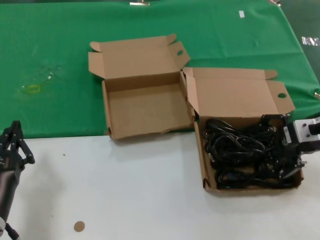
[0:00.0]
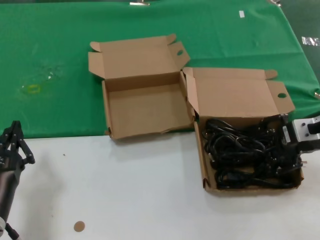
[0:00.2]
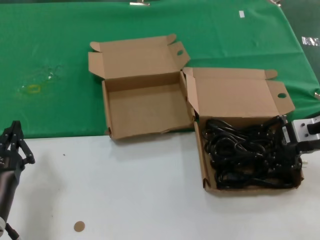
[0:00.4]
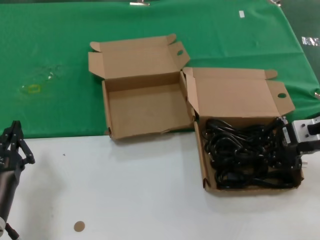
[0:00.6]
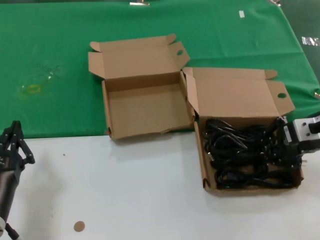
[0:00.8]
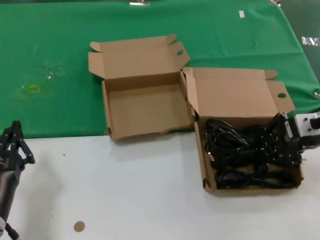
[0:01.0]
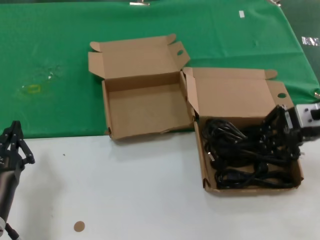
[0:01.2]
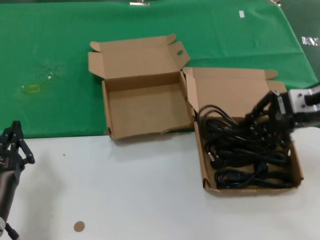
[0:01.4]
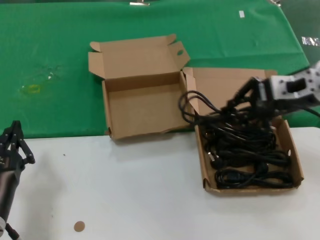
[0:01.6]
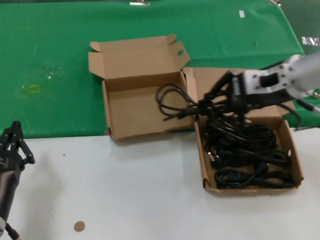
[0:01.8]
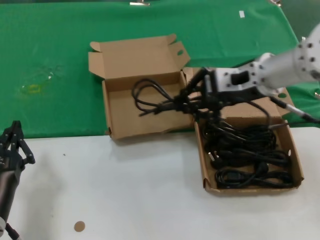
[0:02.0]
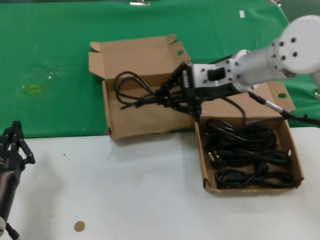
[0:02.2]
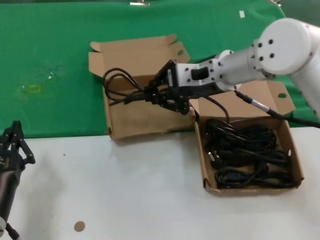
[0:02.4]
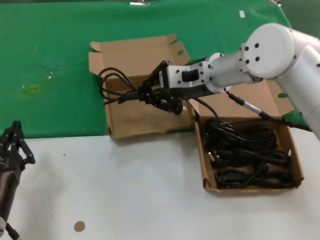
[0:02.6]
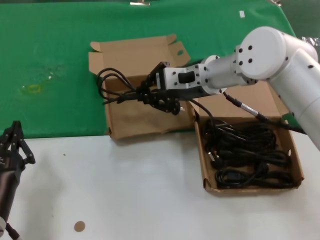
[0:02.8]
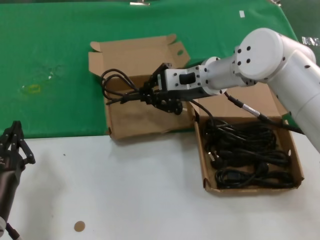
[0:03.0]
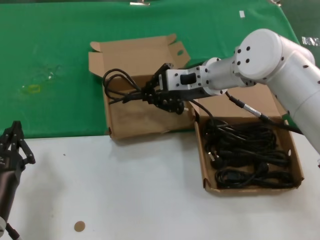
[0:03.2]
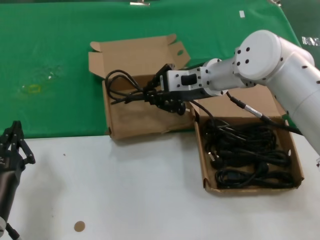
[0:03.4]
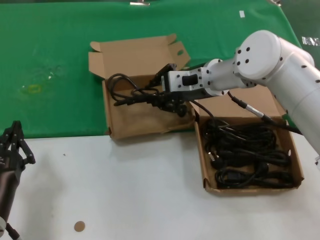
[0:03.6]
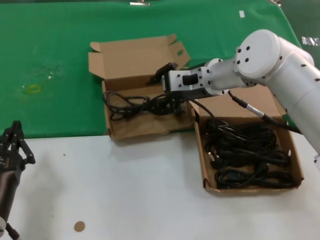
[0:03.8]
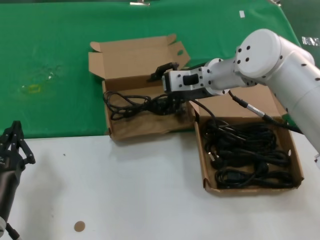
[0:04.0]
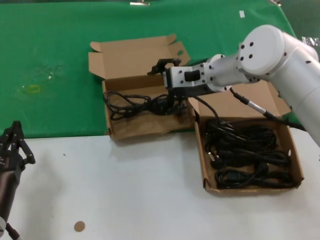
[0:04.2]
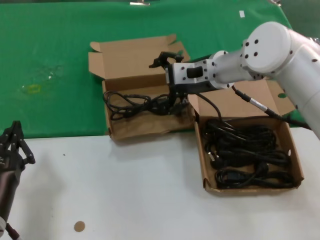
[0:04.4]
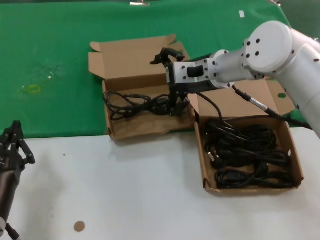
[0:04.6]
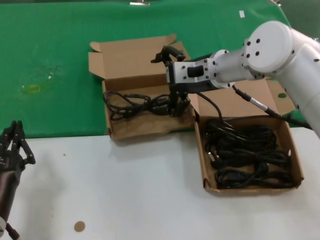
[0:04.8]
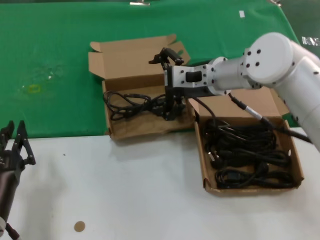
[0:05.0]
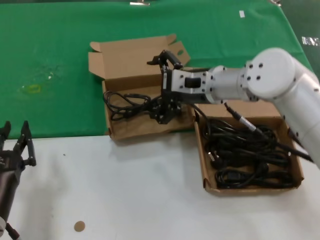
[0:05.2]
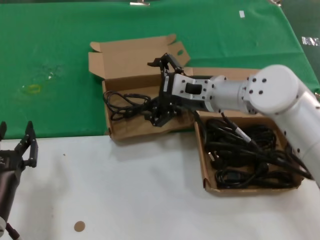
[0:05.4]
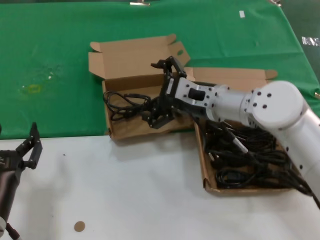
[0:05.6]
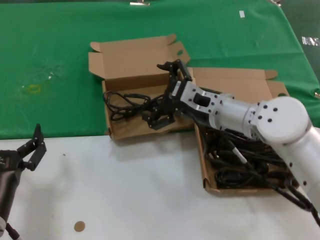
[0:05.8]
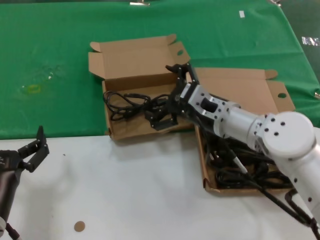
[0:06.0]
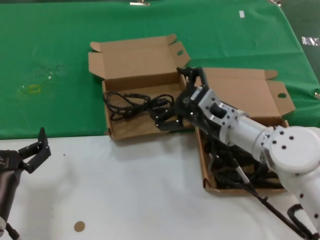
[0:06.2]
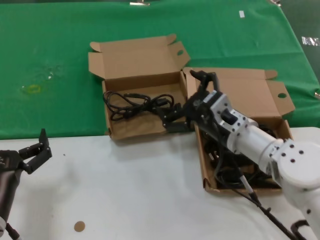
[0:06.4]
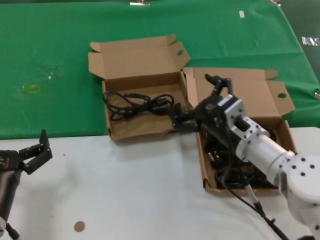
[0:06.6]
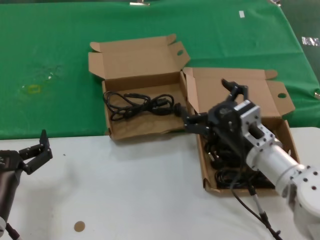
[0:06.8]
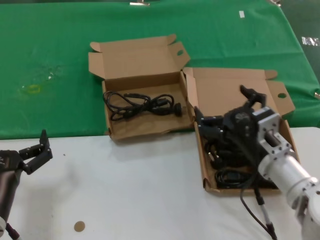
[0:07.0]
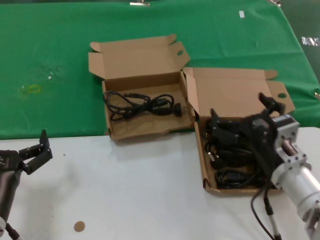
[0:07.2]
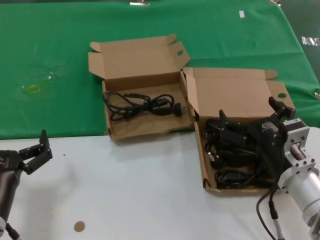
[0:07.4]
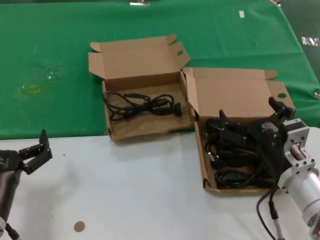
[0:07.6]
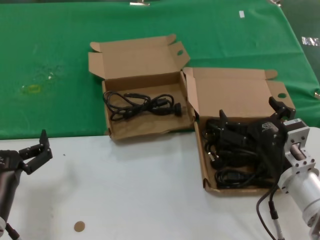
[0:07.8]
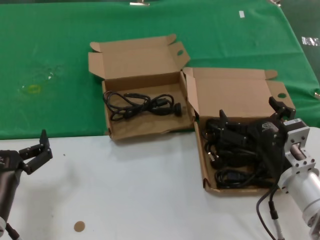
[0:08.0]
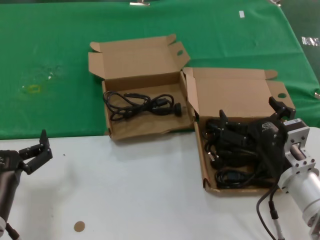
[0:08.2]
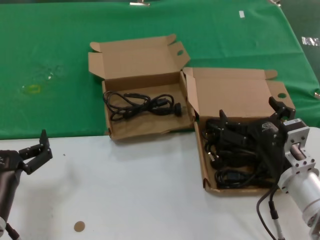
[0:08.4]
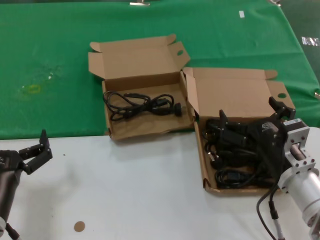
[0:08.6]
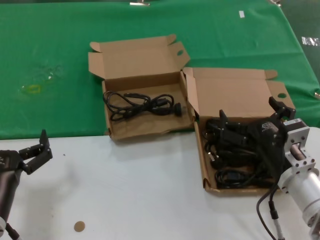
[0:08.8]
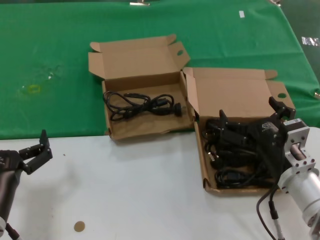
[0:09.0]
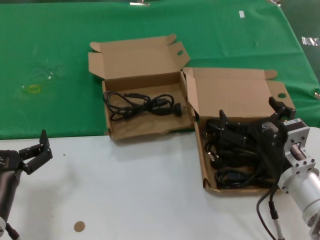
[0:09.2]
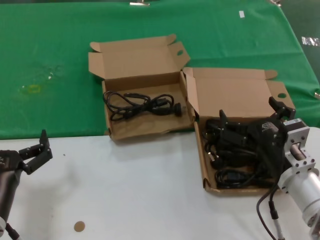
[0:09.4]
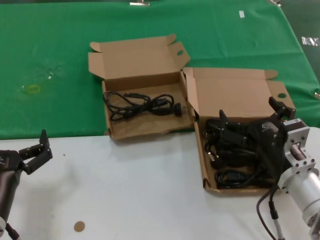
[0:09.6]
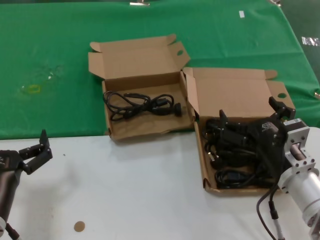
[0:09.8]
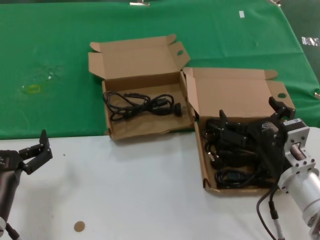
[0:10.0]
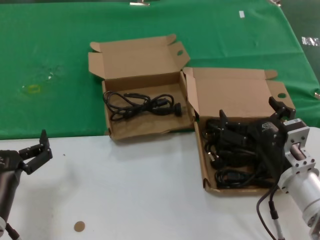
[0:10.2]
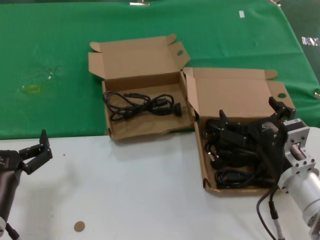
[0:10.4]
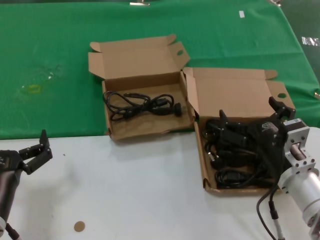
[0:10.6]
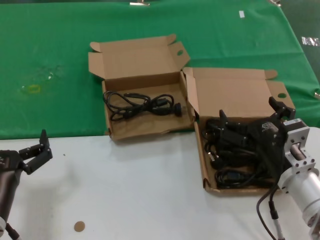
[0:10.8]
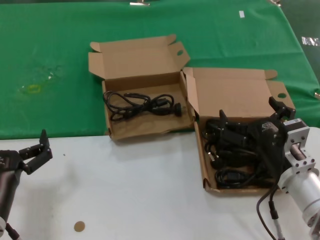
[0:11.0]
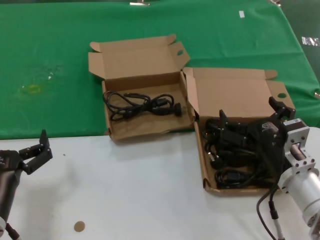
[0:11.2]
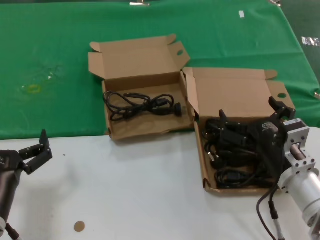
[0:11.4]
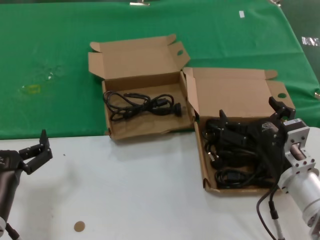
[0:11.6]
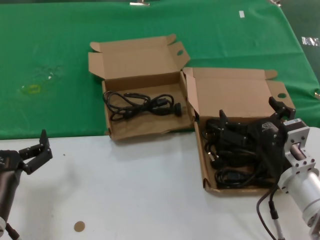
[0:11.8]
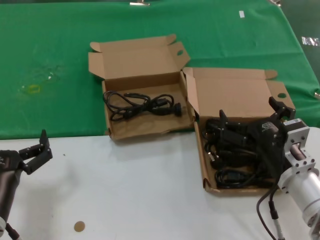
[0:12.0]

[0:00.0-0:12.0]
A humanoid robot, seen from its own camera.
Task of the whole recording: take the parts from the box containing them and put them into an empty box.
Step, 0.6 to 3.6 s: Place the data cable in the another box.
0.0 to 1.6 s: The right hand shifts about 5 cm upward.
1.6 to 3.0 s: The right hand shifts some 20 cm to the left and forward.
3.0 to 4.4 s: There are only small adjustments of the hands.
4.4 to 6.0 s: The right hand moves downward and backward, some 15 cm.
6.0 to 7.6 s: The right hand is displaced backward, to the right and downward by approximately 15 cm.
7.6 to 12.0 s: Both hands stay about where they are.

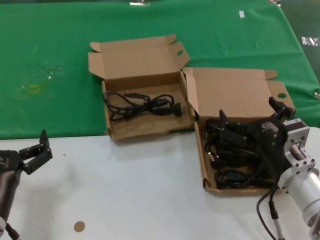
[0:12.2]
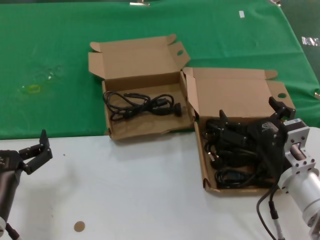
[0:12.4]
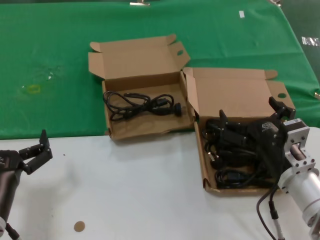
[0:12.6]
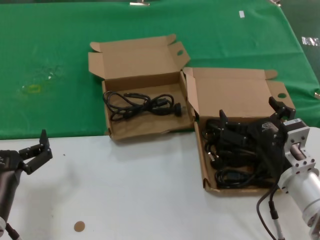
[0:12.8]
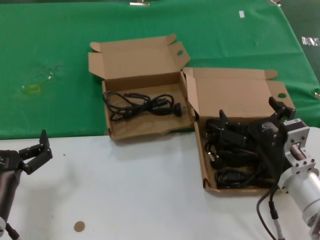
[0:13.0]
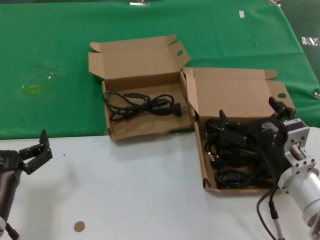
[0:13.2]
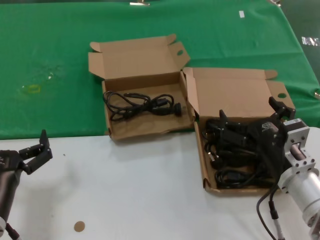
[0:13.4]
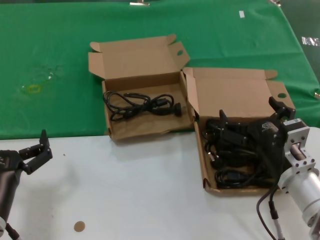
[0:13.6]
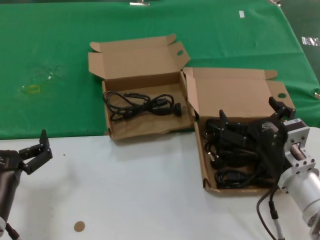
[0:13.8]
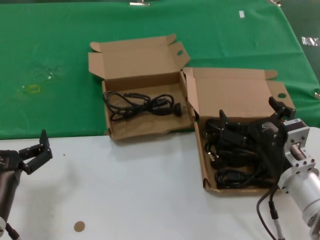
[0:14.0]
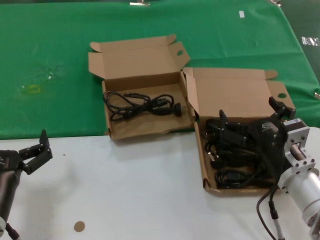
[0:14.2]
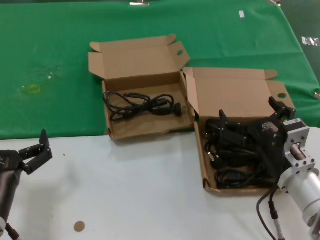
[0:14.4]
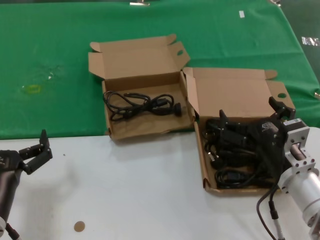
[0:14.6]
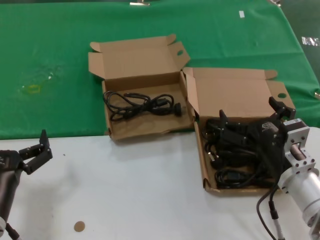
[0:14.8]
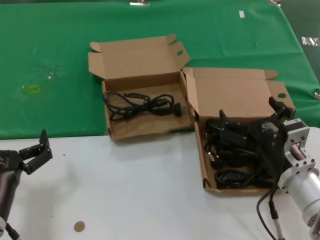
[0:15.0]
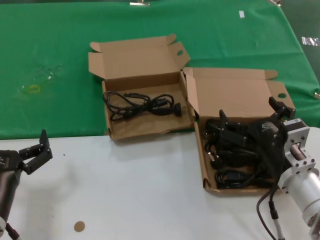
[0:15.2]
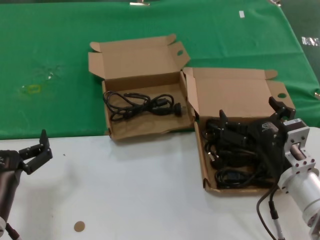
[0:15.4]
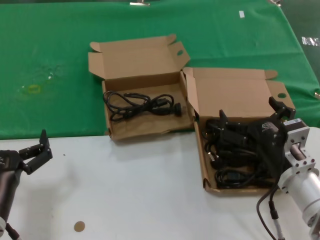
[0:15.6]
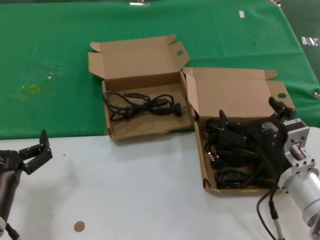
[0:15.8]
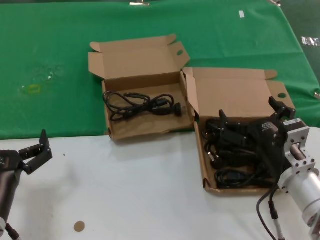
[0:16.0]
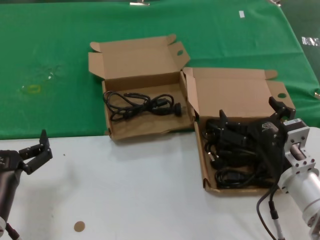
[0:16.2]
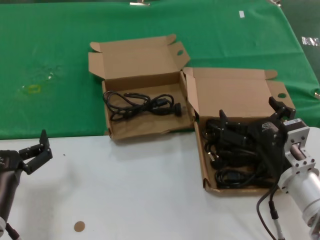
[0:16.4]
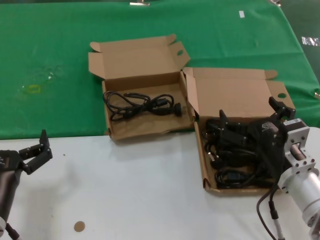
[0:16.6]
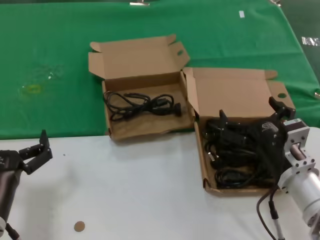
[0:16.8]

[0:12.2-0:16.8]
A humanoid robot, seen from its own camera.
Task of the whole recording: take the parts from the box containing them and put them into an empty box.
12.2 to 16.8 s: Neither hand changes place.

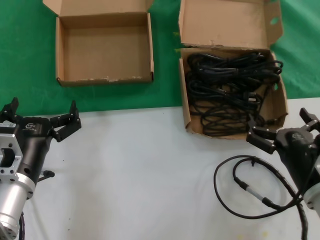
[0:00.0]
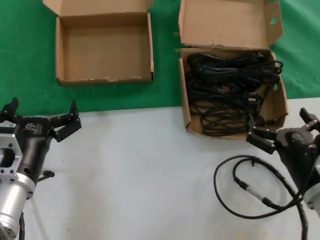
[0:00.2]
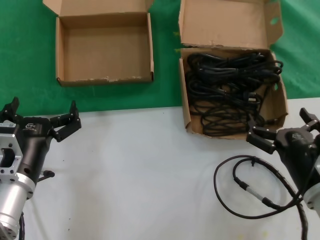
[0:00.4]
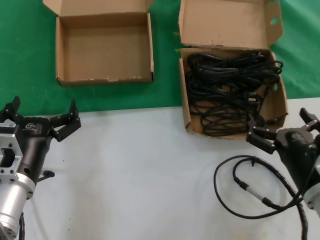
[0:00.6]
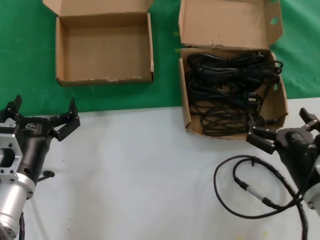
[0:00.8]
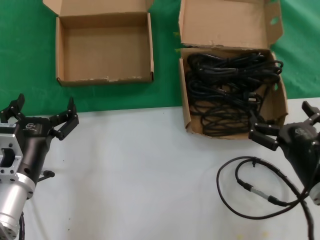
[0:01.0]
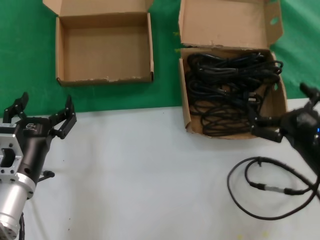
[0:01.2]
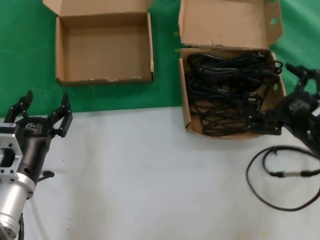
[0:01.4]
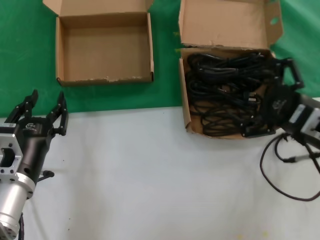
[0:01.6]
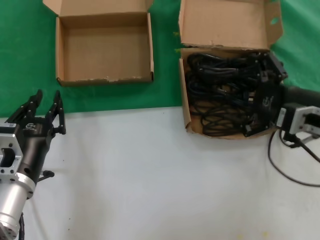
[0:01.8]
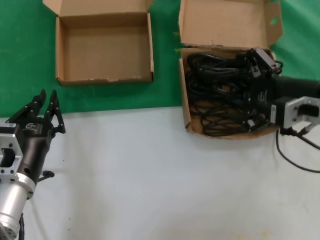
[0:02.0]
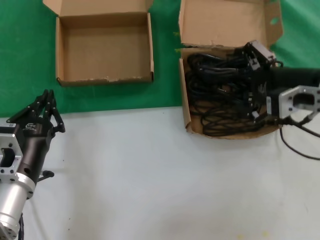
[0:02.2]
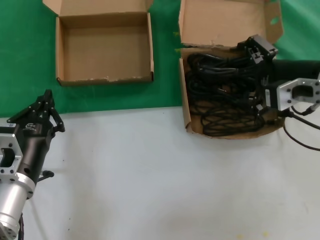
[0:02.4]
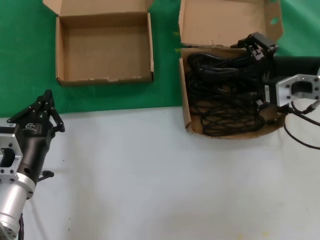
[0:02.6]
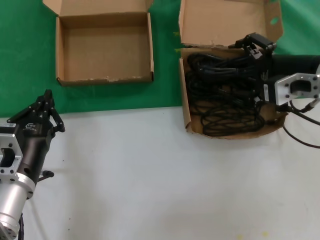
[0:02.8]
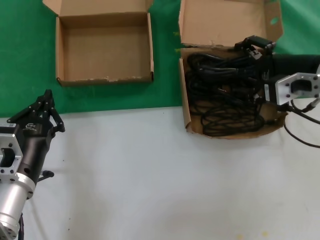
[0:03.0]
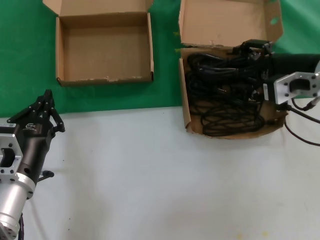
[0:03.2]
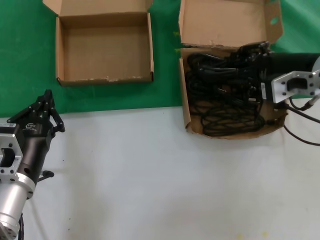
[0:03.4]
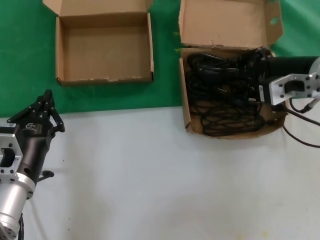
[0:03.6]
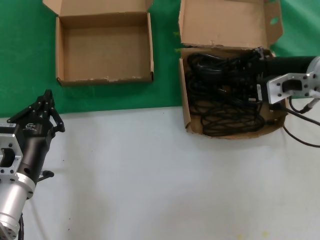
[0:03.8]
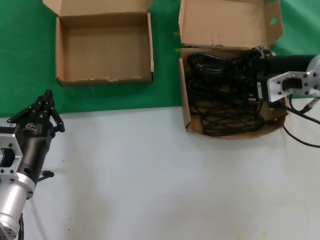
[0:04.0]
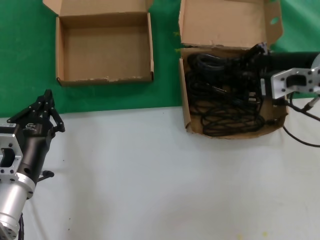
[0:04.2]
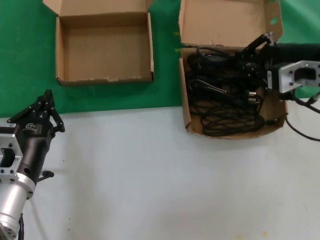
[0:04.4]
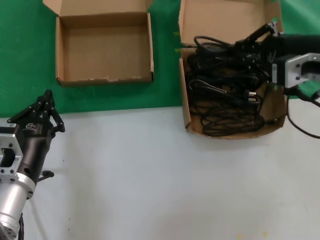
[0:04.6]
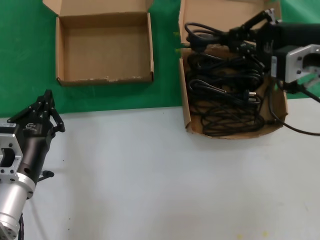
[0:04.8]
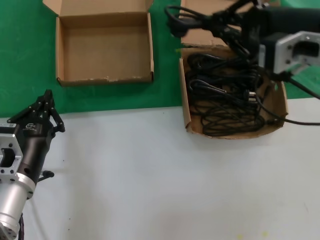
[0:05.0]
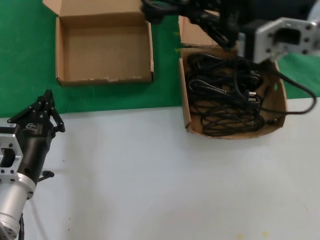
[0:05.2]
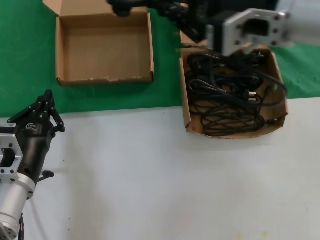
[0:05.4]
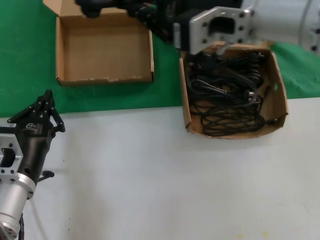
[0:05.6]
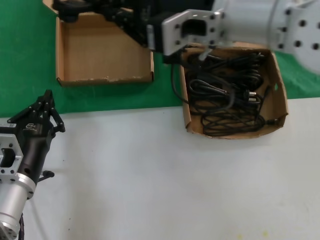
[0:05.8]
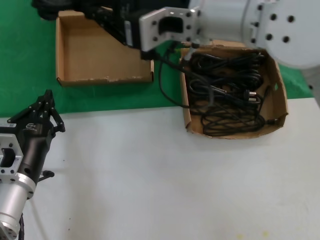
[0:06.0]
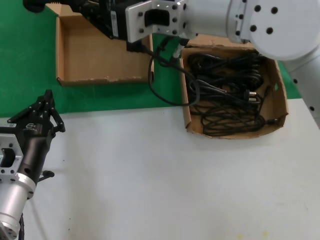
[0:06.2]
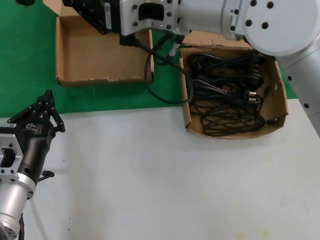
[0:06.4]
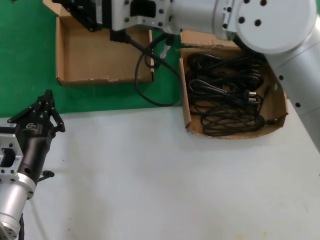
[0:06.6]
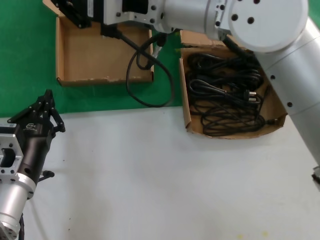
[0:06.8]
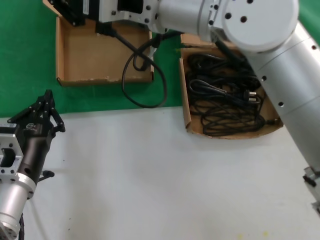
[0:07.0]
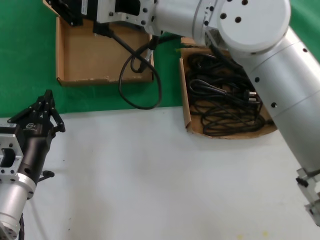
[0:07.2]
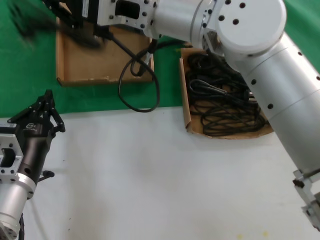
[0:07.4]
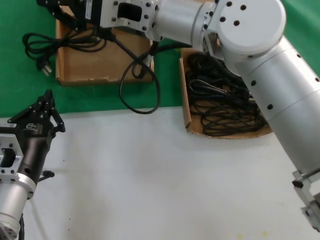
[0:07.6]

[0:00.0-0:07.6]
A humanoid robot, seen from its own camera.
Task of the whole recording: take the parts from the box containing them and put them into an empty box.
Step, 0.0 to 3.8 s: Grasp the data cable.
0.0 to 1.6 s: The right hand goes roughly 10 cm upward and forward.
1.6 to 3.0 s: The right hand heads upward and forward, covering some 15 cm.
3.0 to 4.6 s: There are only small adjustments of the hands.
4.6 to 6.0 s: The right hand heads to the left, covering about 20 cm.
6.0 to 7.6 s: The right hand travels to the left by roughly 5 cm.
